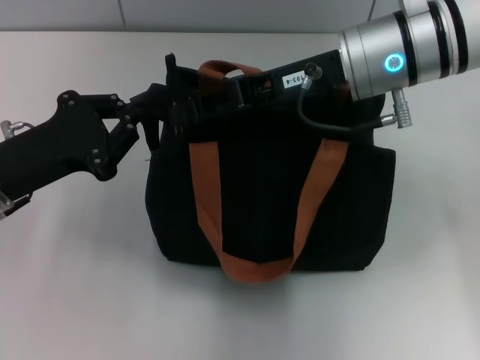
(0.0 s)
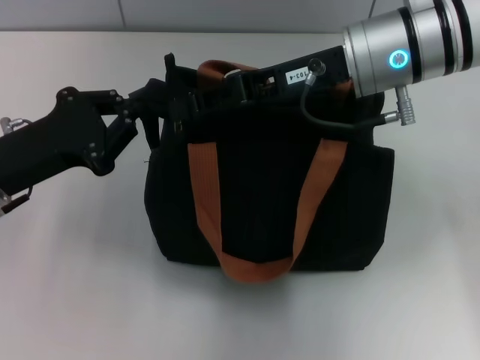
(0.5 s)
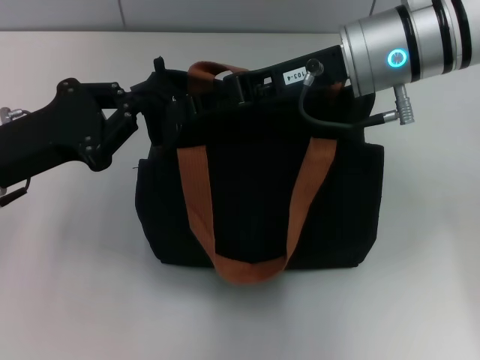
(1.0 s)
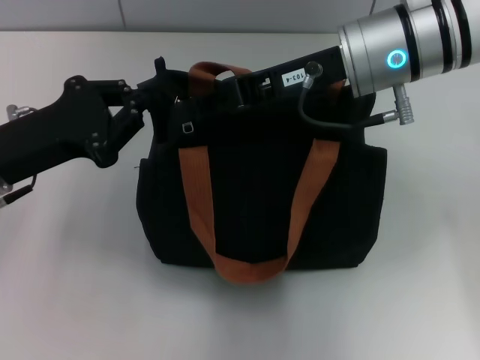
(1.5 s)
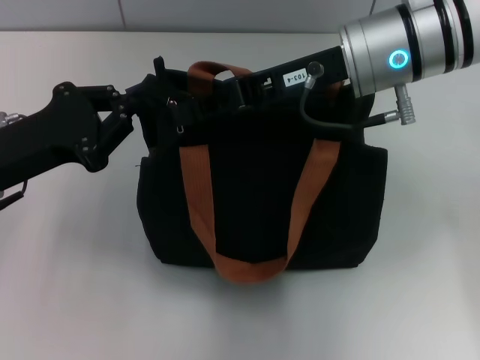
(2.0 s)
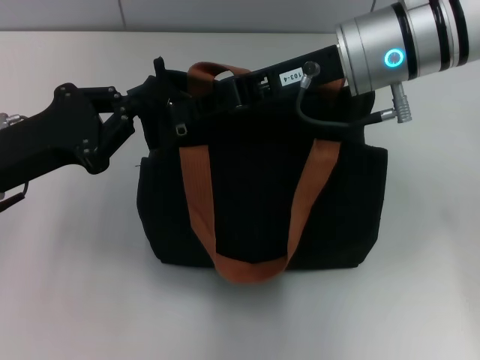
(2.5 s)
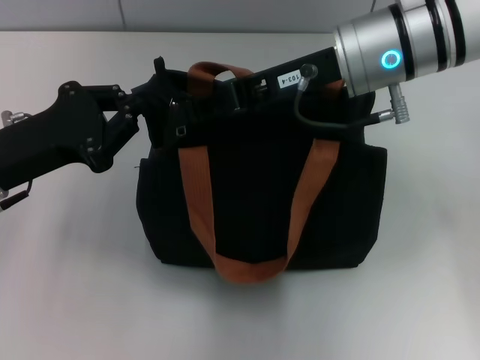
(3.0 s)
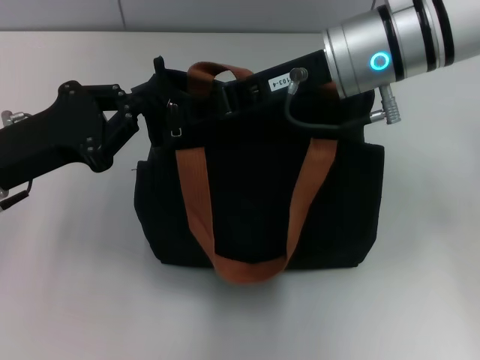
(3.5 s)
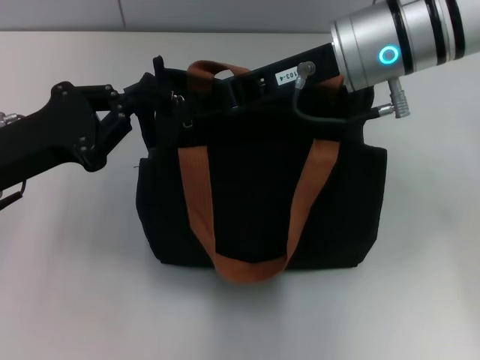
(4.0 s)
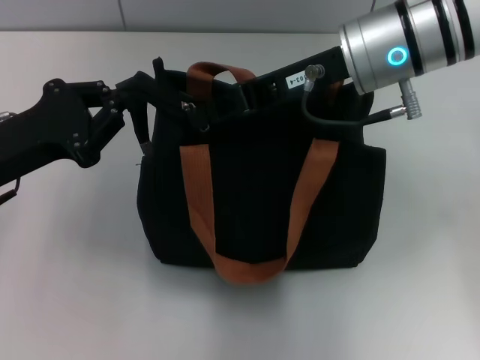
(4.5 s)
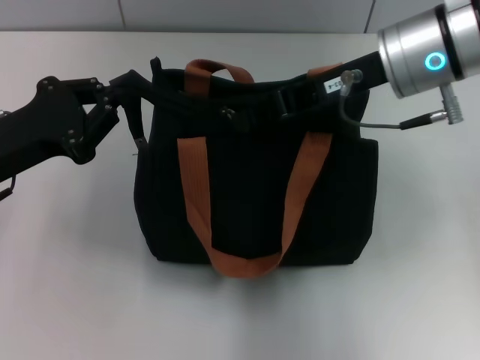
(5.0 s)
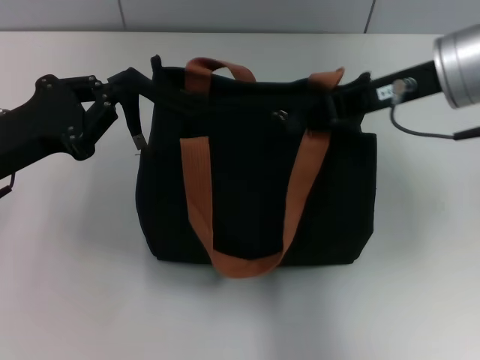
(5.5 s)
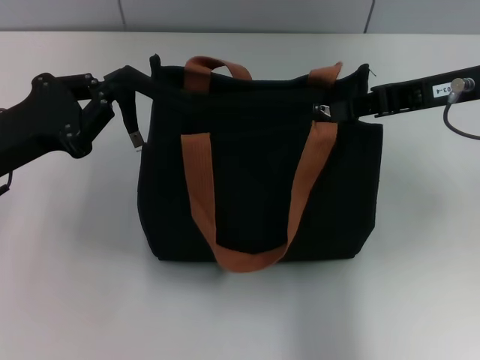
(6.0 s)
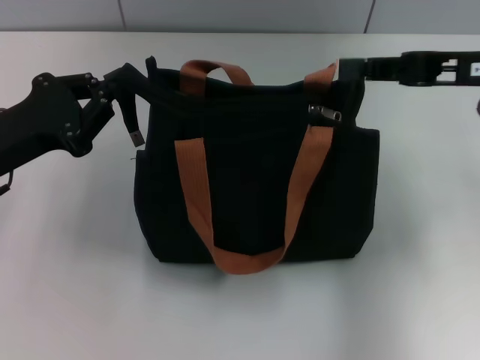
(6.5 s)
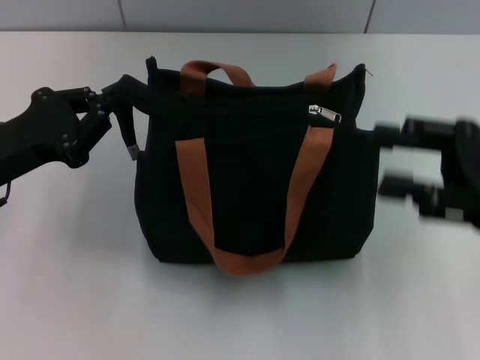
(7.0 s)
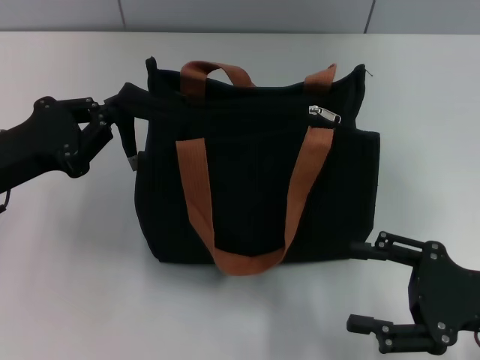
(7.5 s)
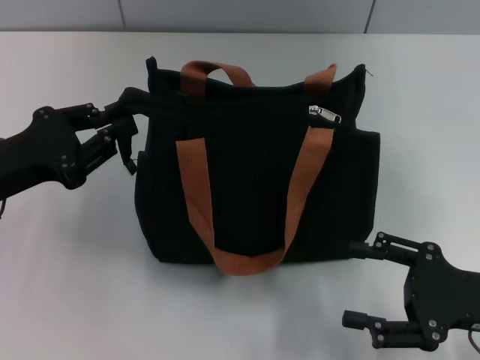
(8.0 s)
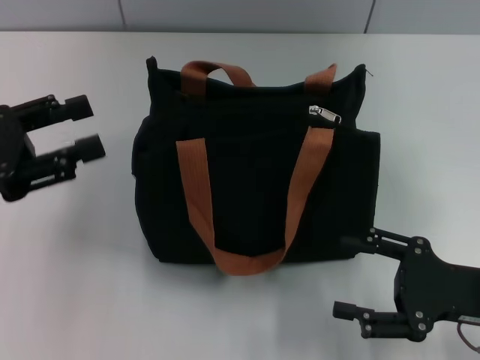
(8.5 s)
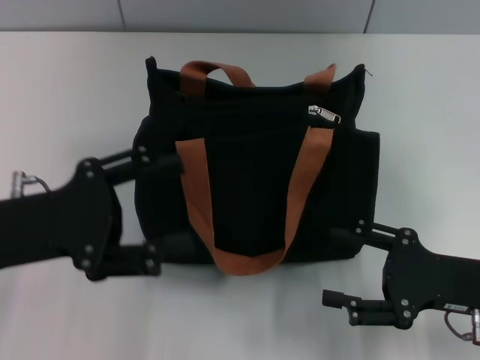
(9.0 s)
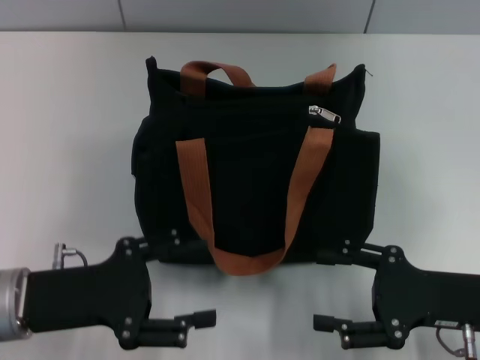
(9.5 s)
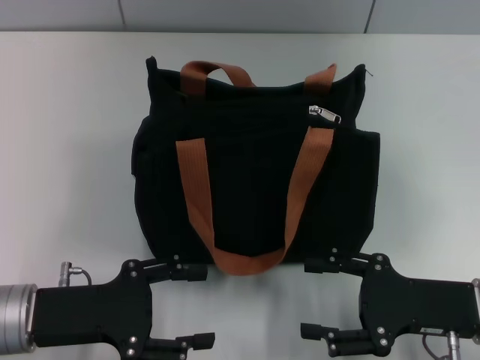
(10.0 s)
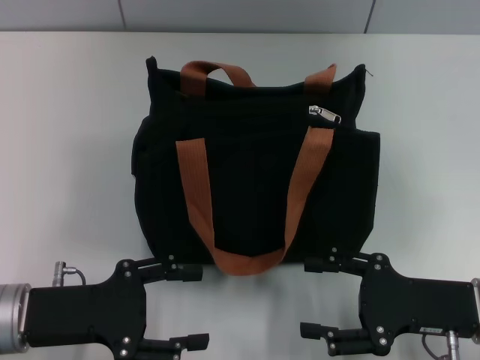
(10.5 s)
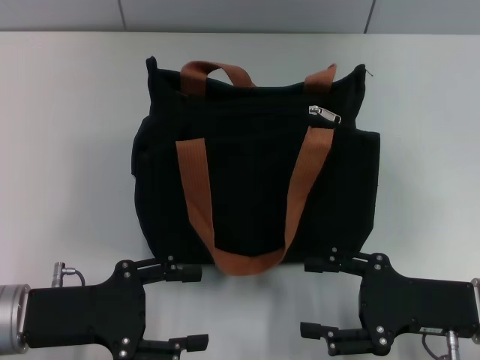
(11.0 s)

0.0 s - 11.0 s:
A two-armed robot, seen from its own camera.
Step, 0.0 s - 6.0 s: Pull up the zipper with your right hand.
0.0 s - 2.0 s: The grippers move only a little.
2.0 s - 3.5 s: Both grippers stay put.
3.5 s - 5.5 s: The right gripper is displaced to the right by about 10 cm.
5.5 s - 7.5 s: The right gripper heads downward, backward and to the right, covering roughly 25 cm, and opens.
7.5 s - 9.0 s: The left gripper opens.
9.0 s - 11.0 s: The left gripper shifts roughly 5 cm downward.
